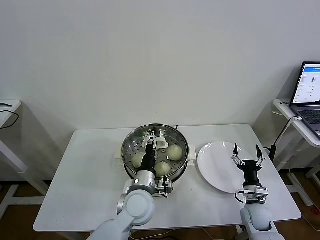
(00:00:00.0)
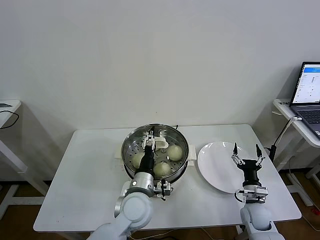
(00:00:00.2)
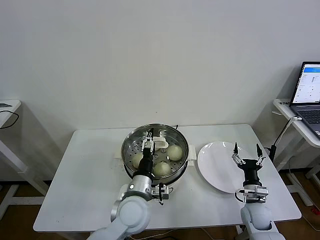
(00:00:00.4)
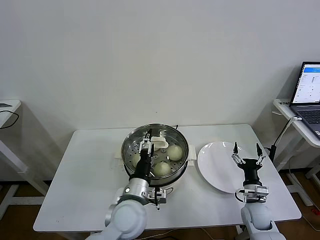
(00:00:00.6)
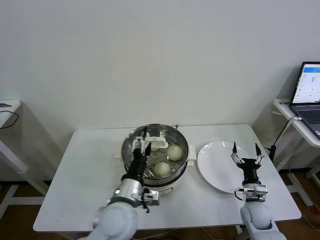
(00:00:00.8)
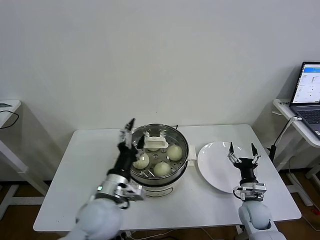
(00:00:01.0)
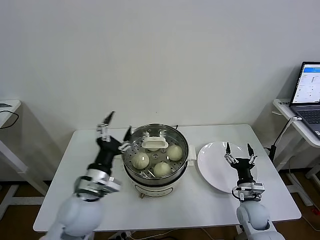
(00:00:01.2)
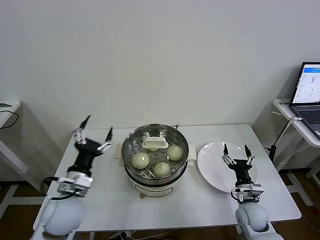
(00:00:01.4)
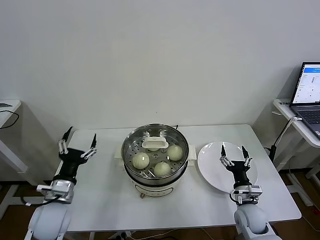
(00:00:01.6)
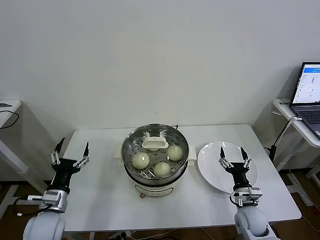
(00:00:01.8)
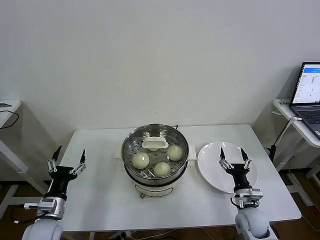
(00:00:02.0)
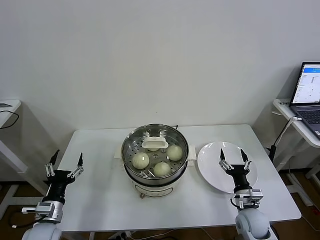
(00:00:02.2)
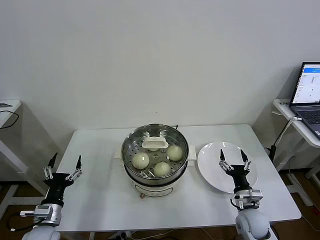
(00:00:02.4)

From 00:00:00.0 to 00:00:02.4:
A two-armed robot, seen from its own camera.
Task of the whole recording: take steamed baozi put them in steamer then cover it.
From 00:00:00.0 to 00:00:01.2: The left gripper moves to the left and upward, roughly 15 cm, and opens its fingers.
From 00:00:01.2 to 00:00:02.4: The left gripper moves to the left and downward, roughly 20 cm.
